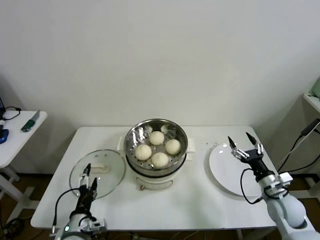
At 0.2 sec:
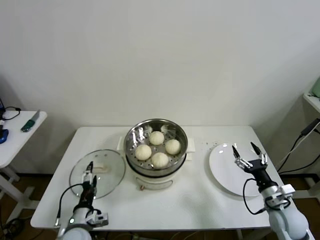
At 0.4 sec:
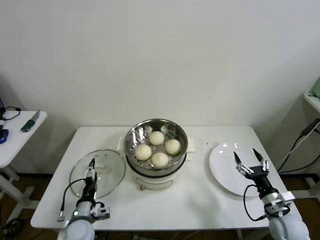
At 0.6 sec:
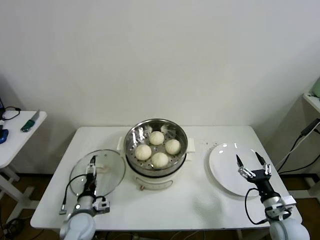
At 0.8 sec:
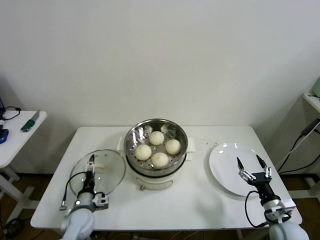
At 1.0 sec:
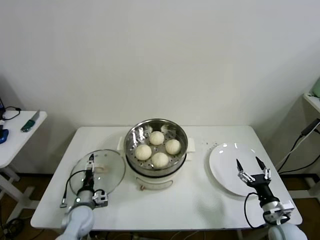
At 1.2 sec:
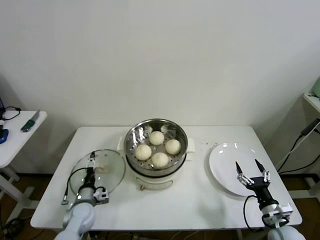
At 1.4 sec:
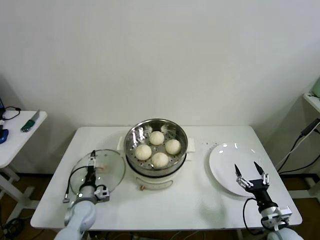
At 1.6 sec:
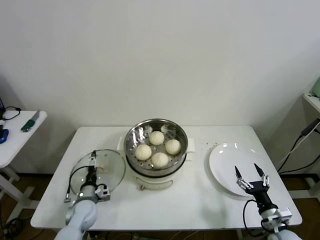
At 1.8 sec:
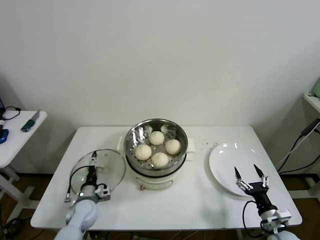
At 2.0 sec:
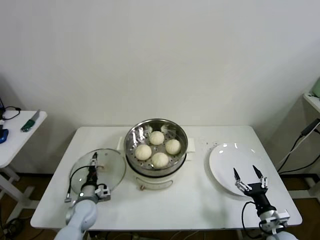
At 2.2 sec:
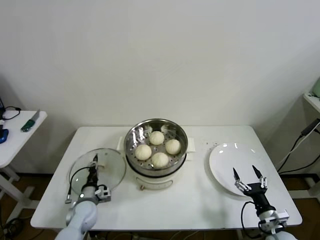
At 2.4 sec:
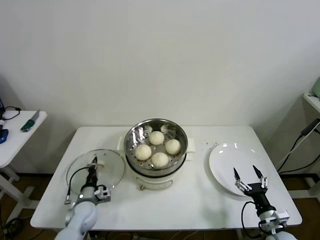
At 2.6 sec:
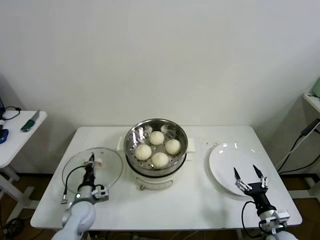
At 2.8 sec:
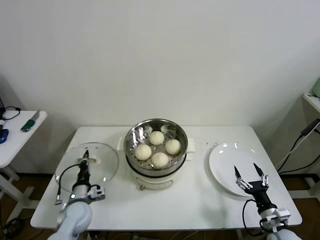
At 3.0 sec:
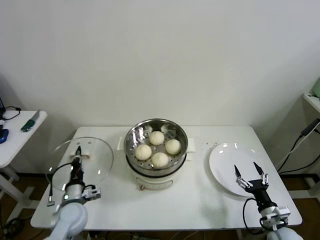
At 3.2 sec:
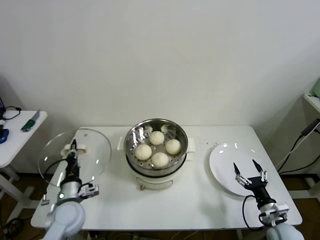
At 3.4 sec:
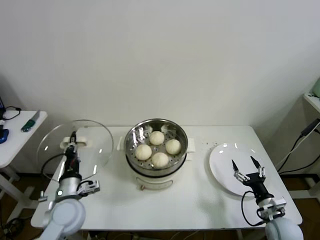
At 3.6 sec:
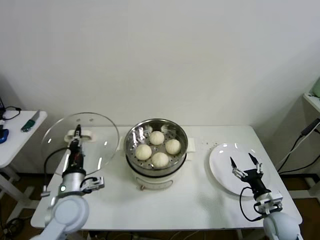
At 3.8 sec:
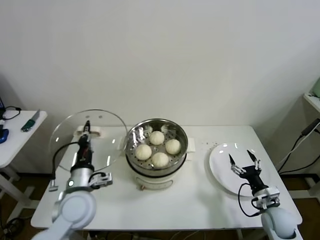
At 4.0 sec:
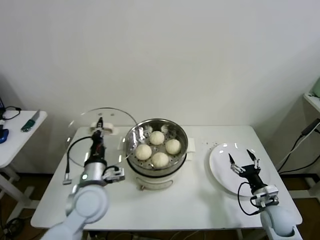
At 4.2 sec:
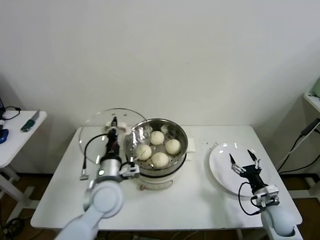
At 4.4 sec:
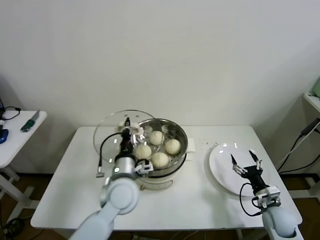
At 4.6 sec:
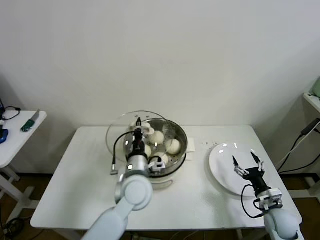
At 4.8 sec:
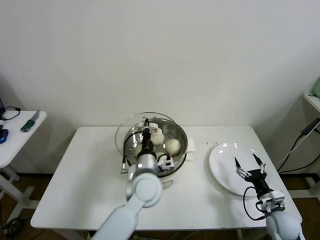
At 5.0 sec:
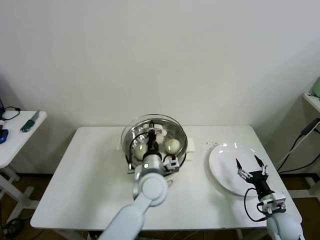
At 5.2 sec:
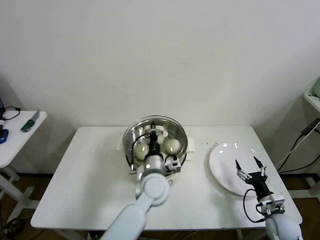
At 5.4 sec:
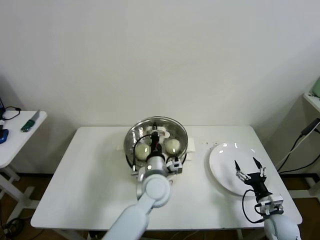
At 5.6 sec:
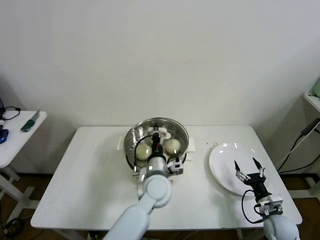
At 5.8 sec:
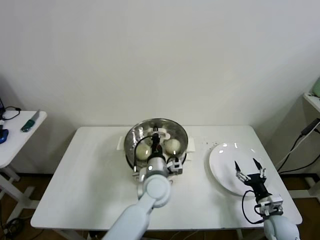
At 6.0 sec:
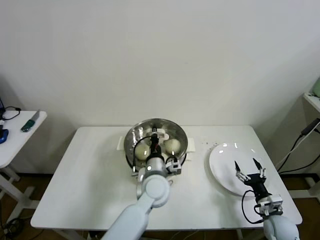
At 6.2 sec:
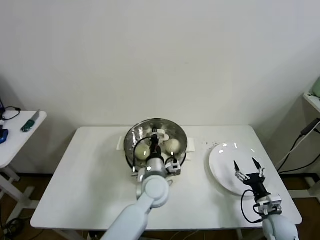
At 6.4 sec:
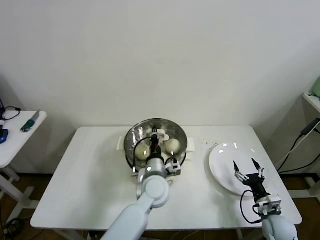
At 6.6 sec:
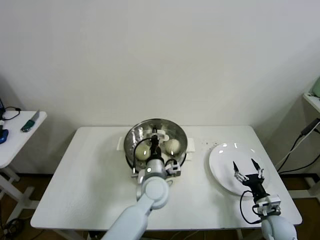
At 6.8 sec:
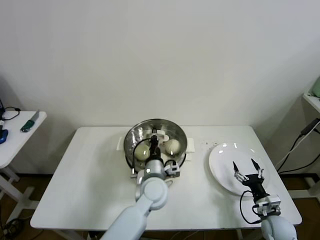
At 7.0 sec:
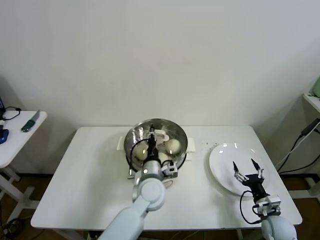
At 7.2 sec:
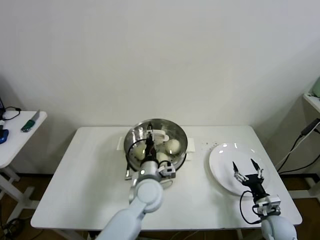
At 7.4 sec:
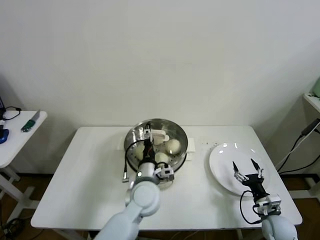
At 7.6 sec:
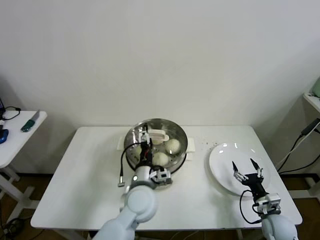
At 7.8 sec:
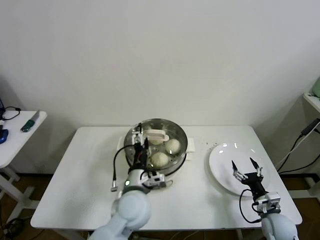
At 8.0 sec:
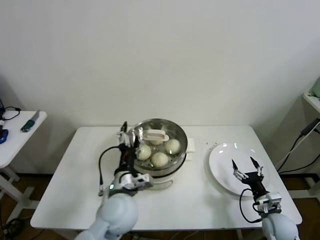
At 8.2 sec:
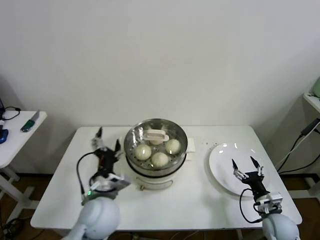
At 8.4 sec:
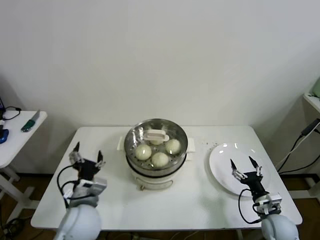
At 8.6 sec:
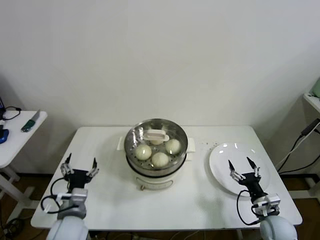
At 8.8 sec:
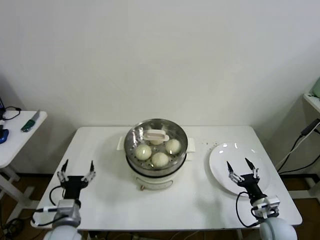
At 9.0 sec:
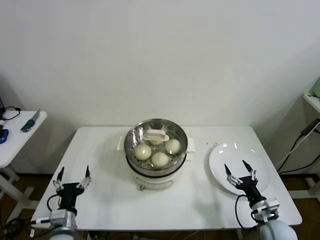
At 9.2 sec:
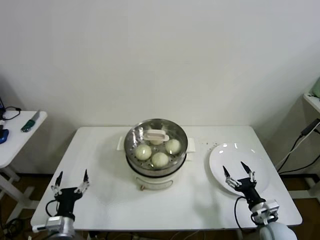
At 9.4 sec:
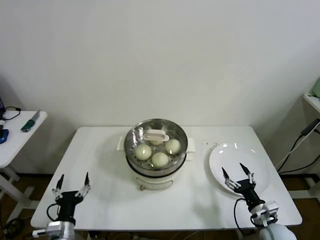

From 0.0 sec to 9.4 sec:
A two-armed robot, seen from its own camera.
Step, from 0.0 sec to 2.4 sec: Grasp the pot lid with left gripper.
Step, from 2.6 sec to 7.0 sec: Place the pot lid on the steamer with left gripper.
From 0.0 sec to 1.6 sec: The left gripper heads forward and downward, covering approximately 15 cm. Meanwhile the right gripper moves backward and downward, some 10 cm.
From 1.6 sec to 3.2 sec: The left gripper heads upward, covering approximately 10 cm, and closes its fingers.
From 3.2 sec to 4.8 sec: The left gripper travels to the right by some 25 cm.
From 4.8 sec to 6.2 sec: The left gripper changes place by approximately 5 cm.
From 6.2 sec to 7.8 sec: The left gripper goes approximately 5 cm backward, and opens.
From 7.8 sec to 9.4 sec: The left gripper travels to the left, backward and downward by some 30 cm.
